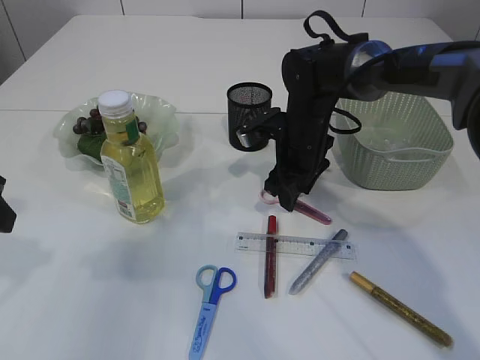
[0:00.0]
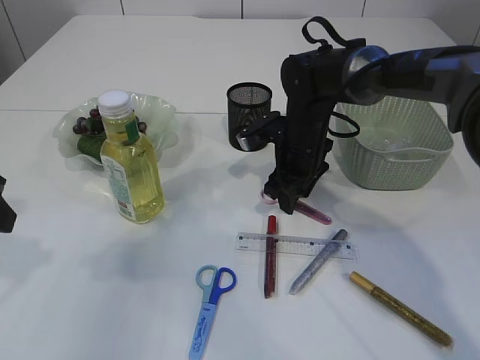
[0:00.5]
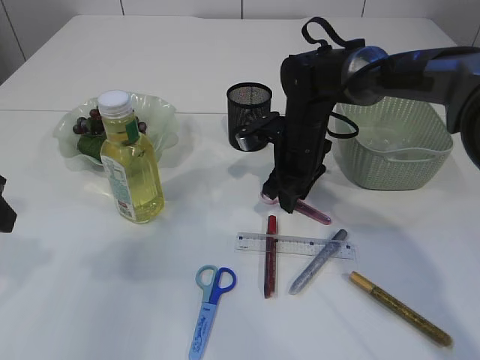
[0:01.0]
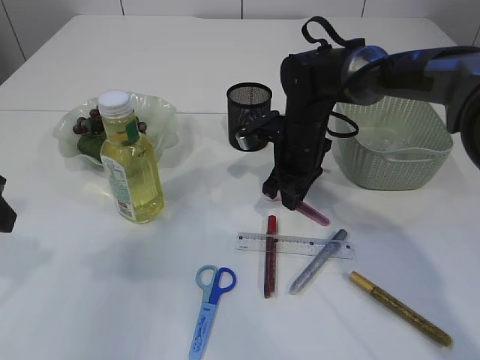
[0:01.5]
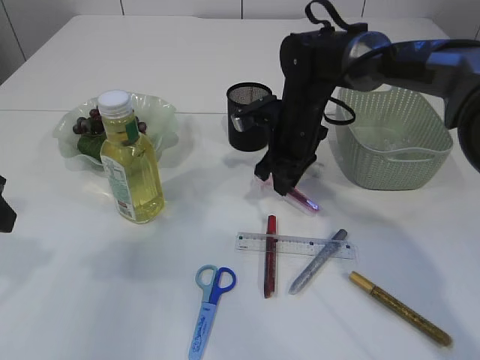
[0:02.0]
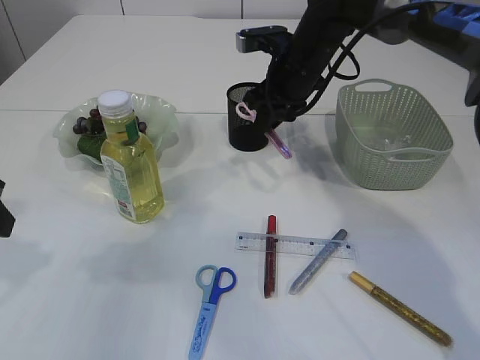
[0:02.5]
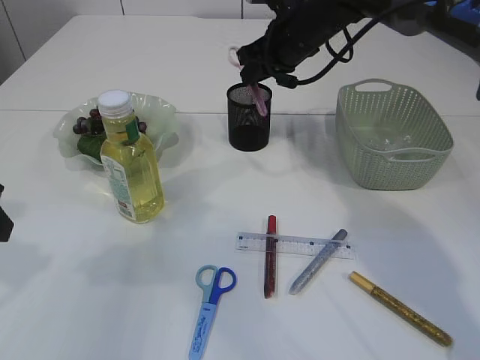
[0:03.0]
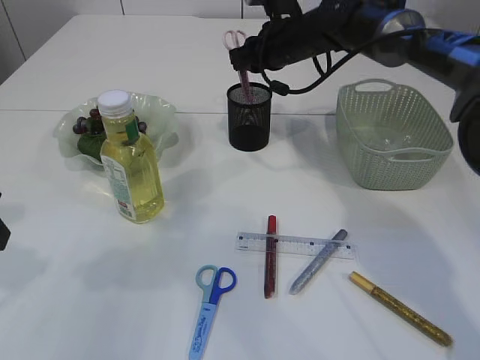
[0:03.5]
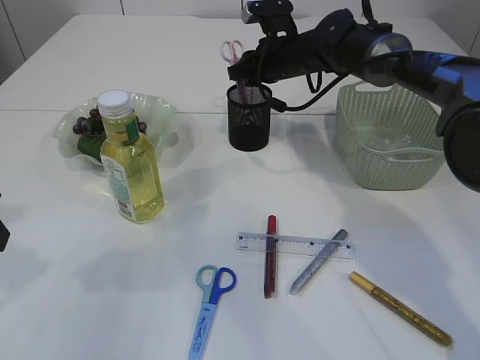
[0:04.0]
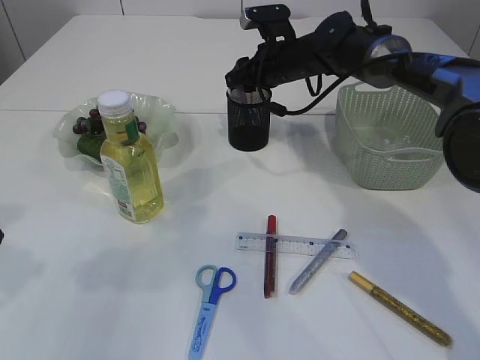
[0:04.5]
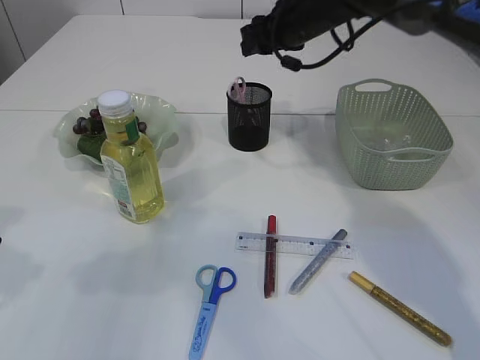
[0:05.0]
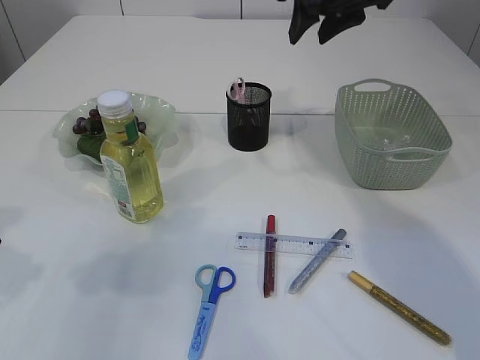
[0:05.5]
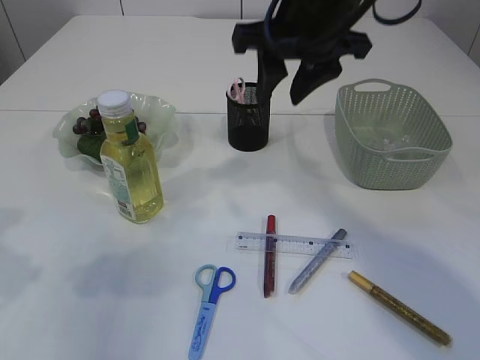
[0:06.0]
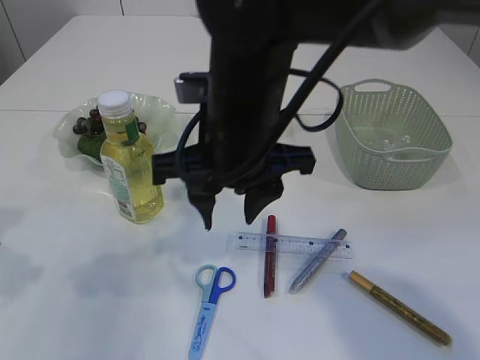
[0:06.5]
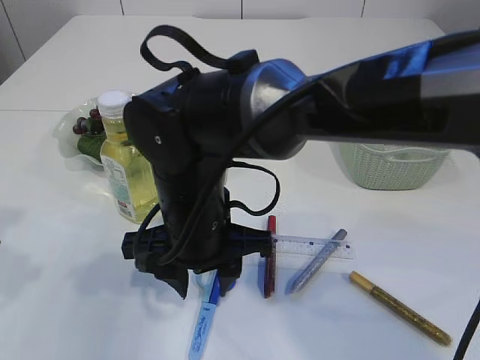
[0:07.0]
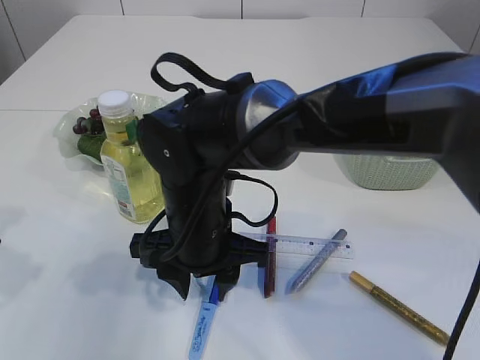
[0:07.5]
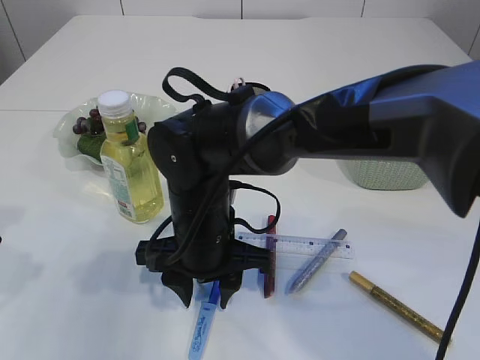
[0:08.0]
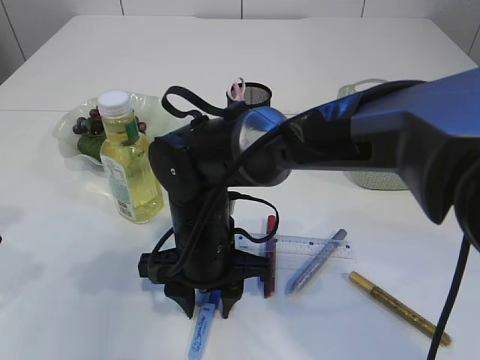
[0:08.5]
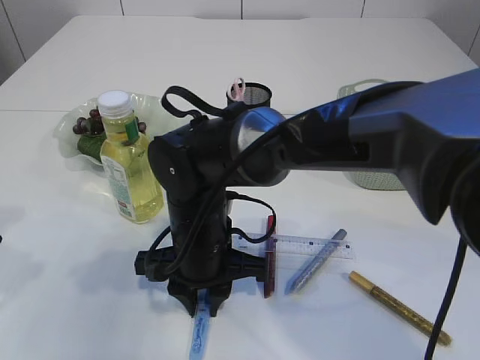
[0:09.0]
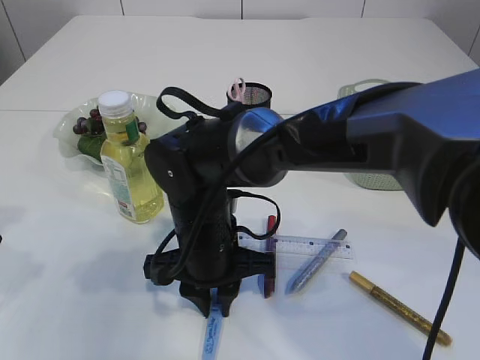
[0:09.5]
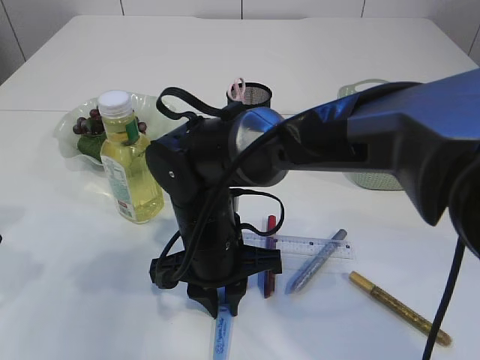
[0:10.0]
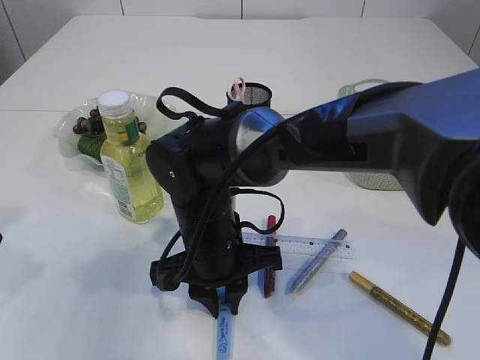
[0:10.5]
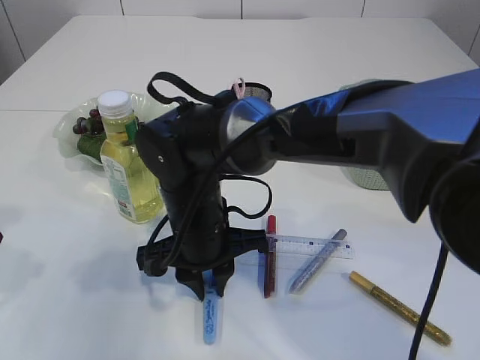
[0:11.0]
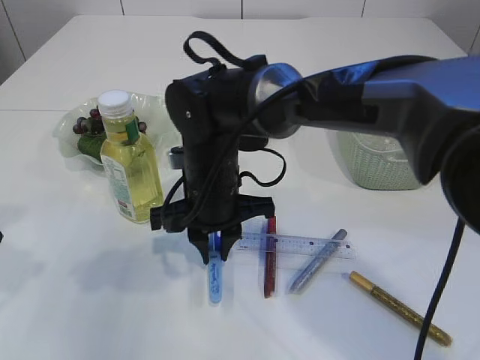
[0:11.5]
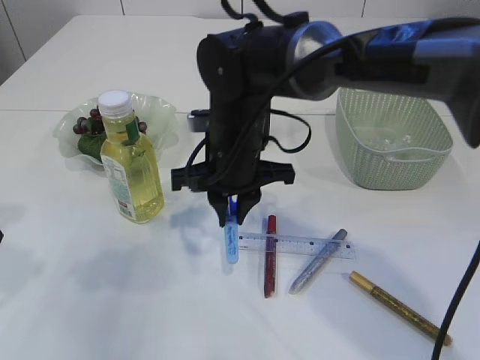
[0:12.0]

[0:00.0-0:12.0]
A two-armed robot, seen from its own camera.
Step, 0:00.0 to 0:02.0: pick up the pink scissors.
Step, 0:02.5 to 0:05.0: Place the pink scissors into the pen holder.
Step, 0:05.5 to 0:11.5: pick up the blue scissors.
0:00.0 to 0:02.0: The right gripper closes.
0:02.0 to 0:04.0: The right gripper travels forward by some 10 cm.
0:04.0 to 0:06.0: The right gripper is displaced backward and upward by some 20 cm, and opens up.
0:06.0 to 0:08.0: The right gripper moves downward, to the left and backward, about 25 cm.
0:08.0 to 0:10.0: The right gripper closes.
0:10.0 to 0:12.0: The right gripper is displaced forward and upward by approximately 10 cm.

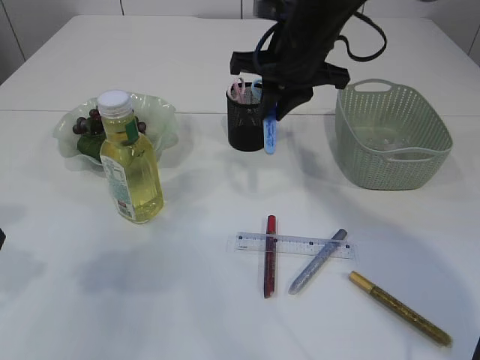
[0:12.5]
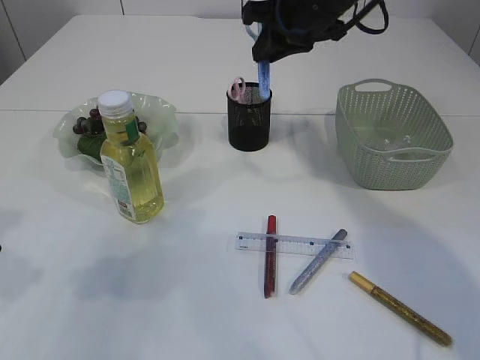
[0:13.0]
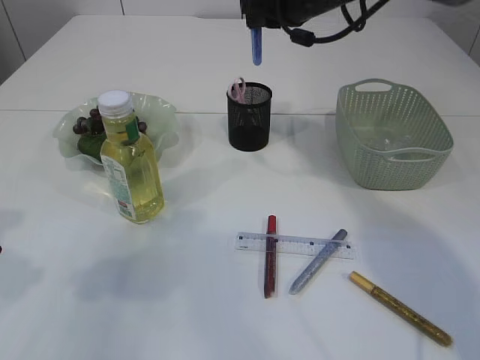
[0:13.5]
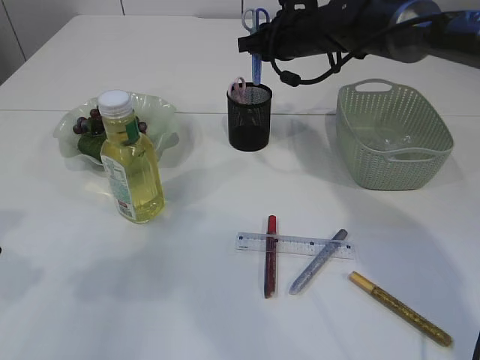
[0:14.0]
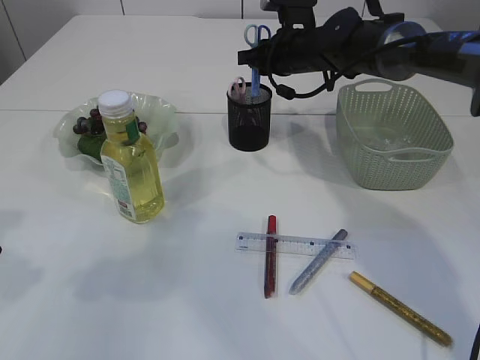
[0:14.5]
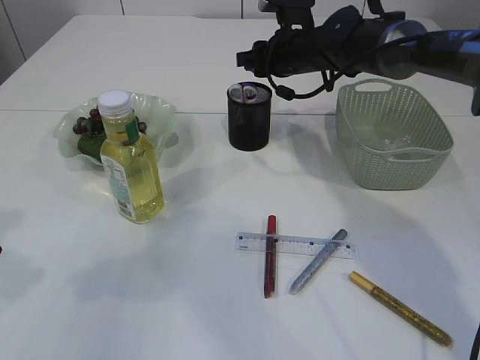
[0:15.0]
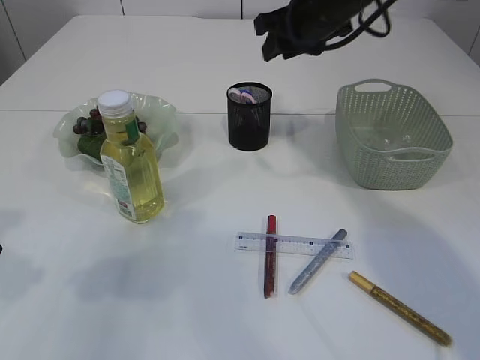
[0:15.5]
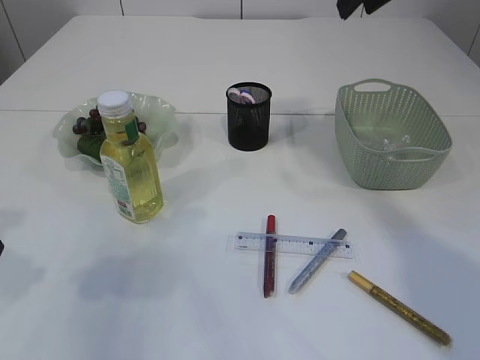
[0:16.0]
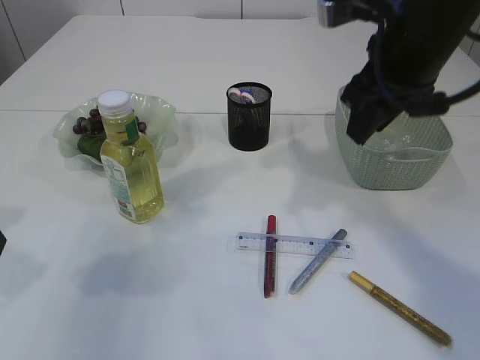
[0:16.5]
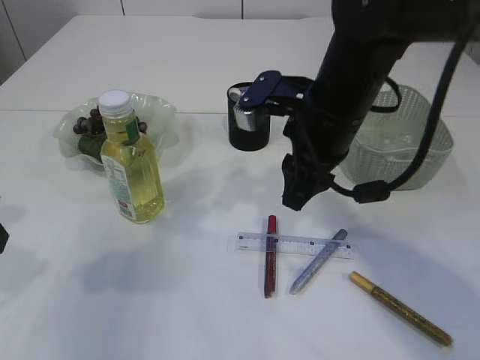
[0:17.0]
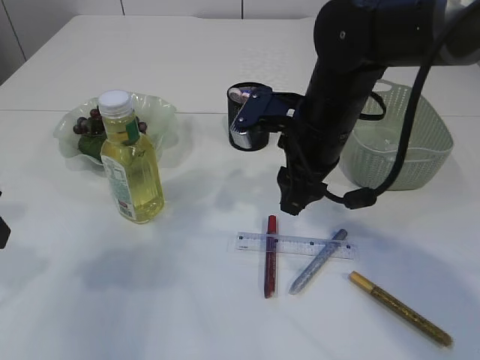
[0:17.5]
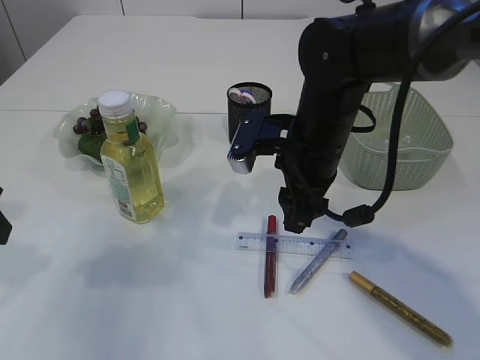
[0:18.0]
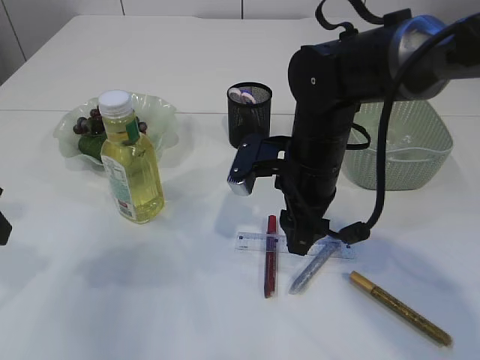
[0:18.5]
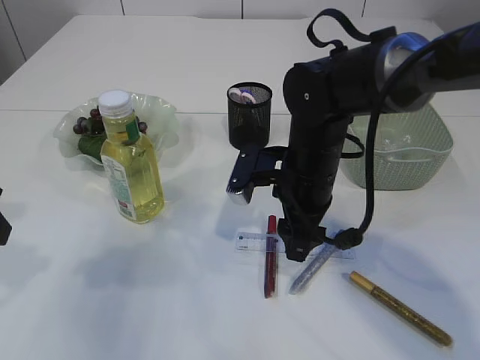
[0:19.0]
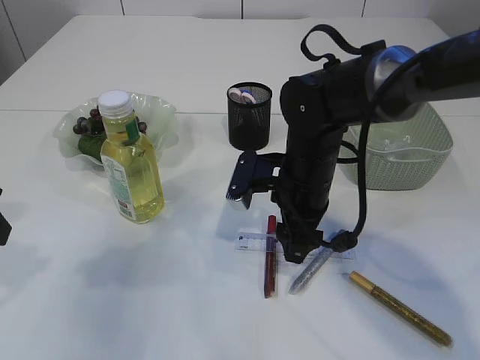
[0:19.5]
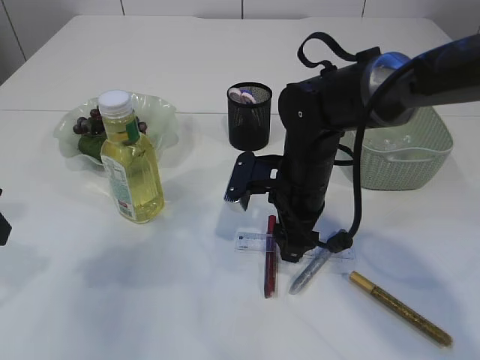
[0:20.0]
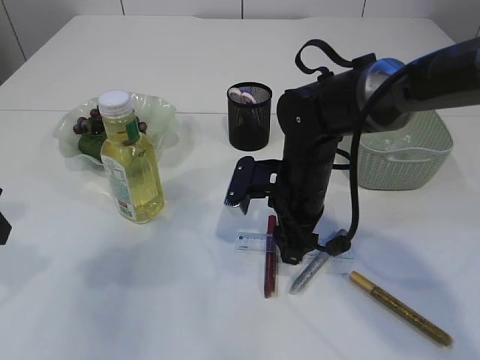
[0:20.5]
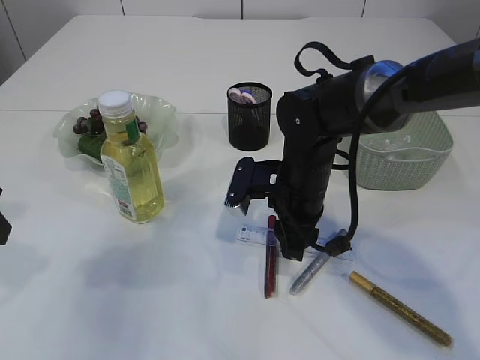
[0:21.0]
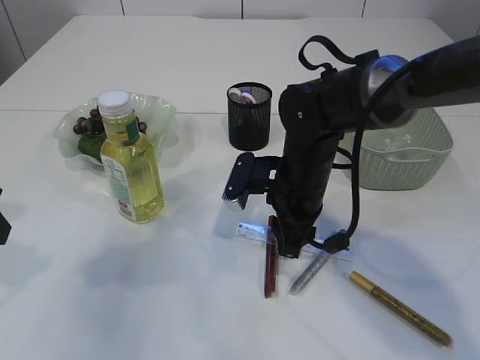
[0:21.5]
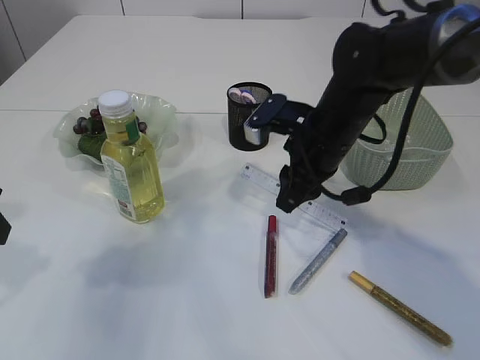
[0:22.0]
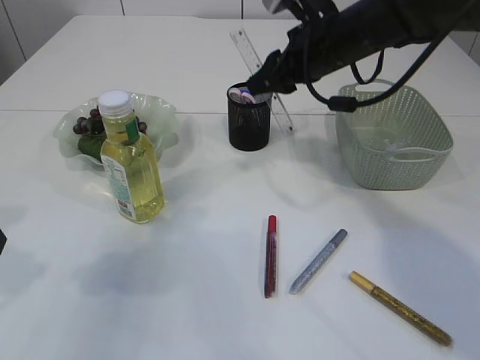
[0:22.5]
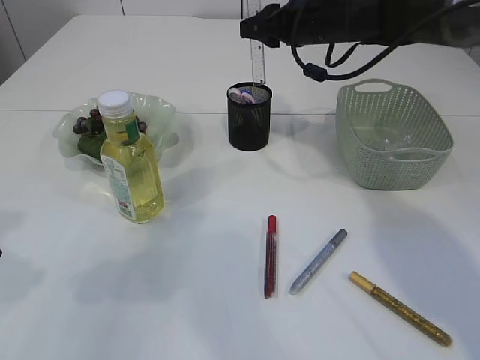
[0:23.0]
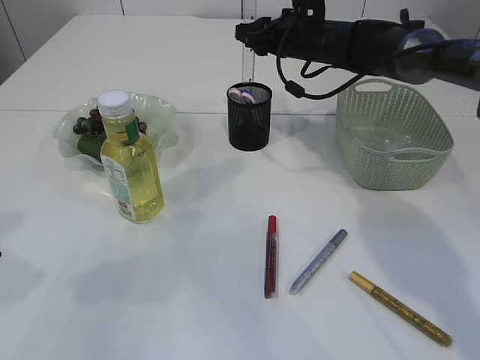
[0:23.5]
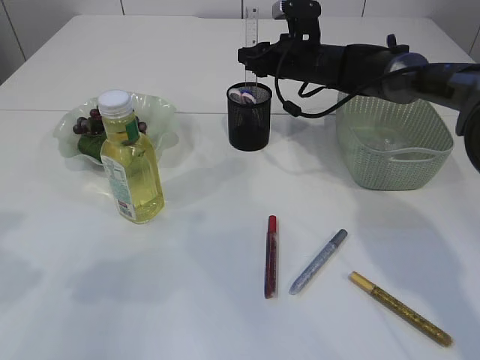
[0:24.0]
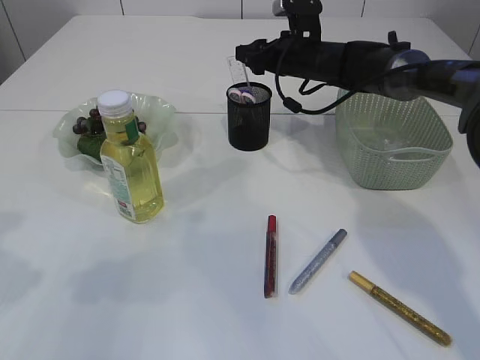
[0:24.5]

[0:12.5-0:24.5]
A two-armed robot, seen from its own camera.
Step, 0:12.5 to 0:15.5: Place the blue scissors into the pen holder.
Step, 0:16.0 to 0:22.0: pick up the ruler.
0:12.5 to 0:14.5: The right gripper goes approximately 15 cm forward and downward.
0:14.5 to 0:16.5: The right gripper is displaced backward and upward by about 25 cm.
0:16.5 to 0:18.5: The right gripper heads downward and to the left, covering some 15 cm, and opens.
0:18.5 to 0:20.5: There are only small adjustments of the grippers.
0:20.5 to 0:22.5: The right gripper heads upward and forward, covering some 15 cm, and closes up.
0:22.5 to 0:24.5: The right gripper moves forward and downward, approximately 15 cm.

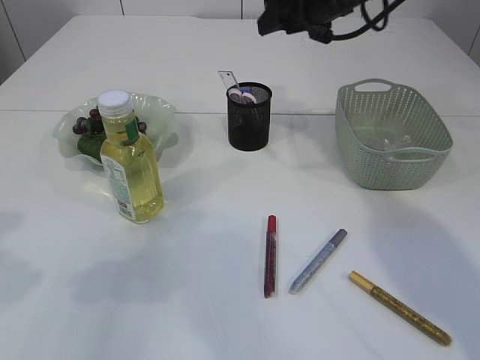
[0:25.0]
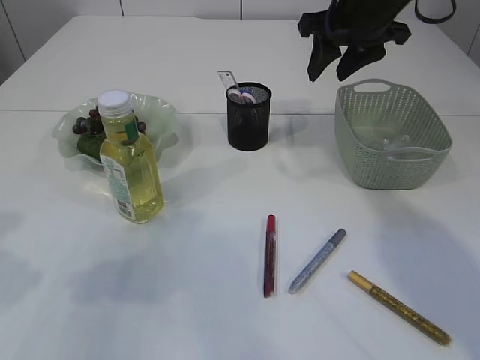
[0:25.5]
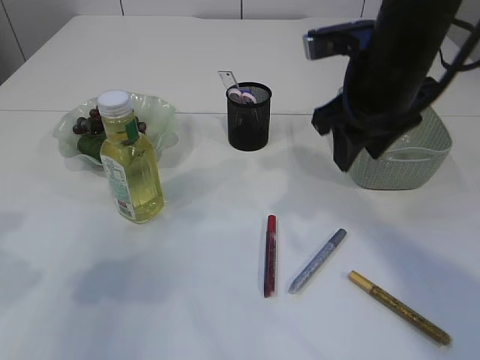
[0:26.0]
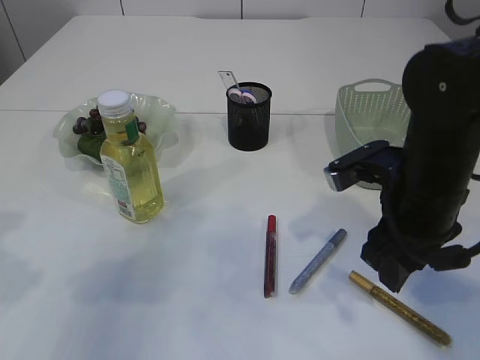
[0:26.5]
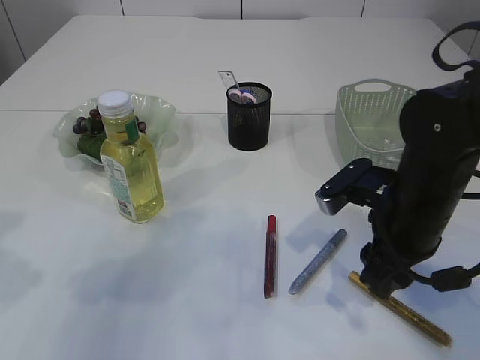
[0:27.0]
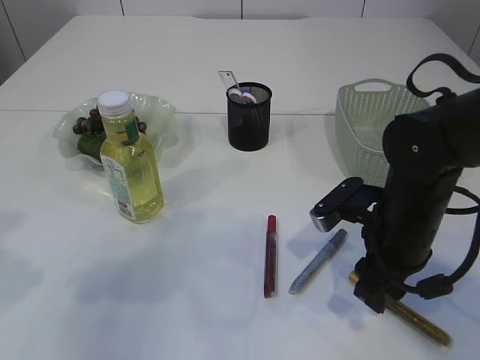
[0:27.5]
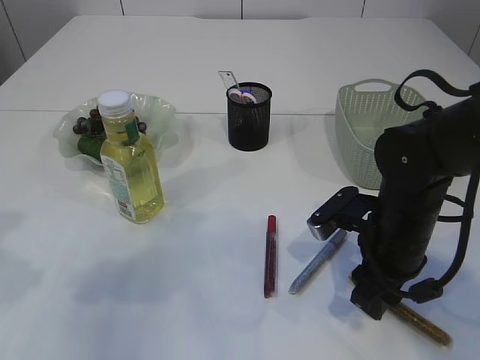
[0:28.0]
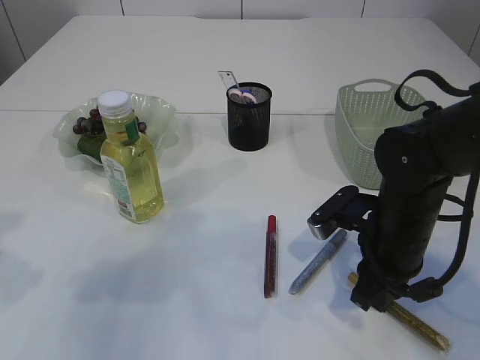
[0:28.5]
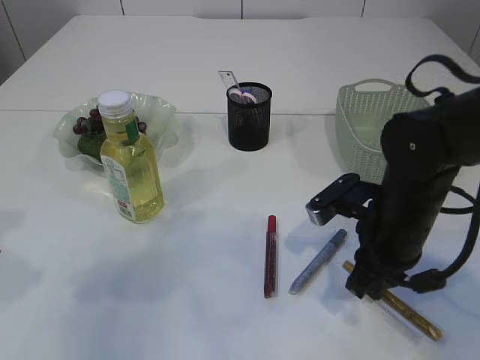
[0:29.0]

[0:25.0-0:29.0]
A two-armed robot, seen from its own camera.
0:25.0 to 0:27.0: The right gripper is displaced backward and downward by approximately 25 cm.
0:27.0 to 0:29.0: The right gripper closes.
